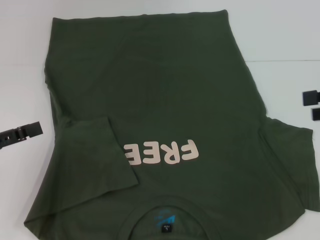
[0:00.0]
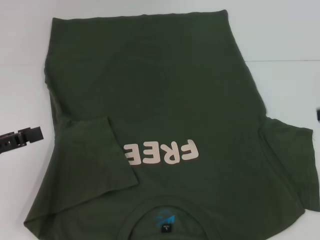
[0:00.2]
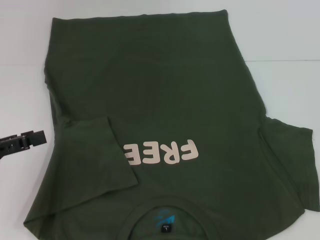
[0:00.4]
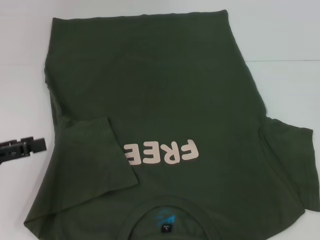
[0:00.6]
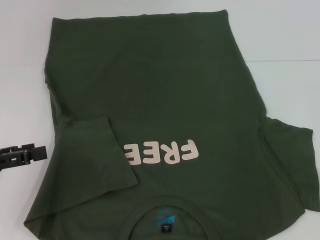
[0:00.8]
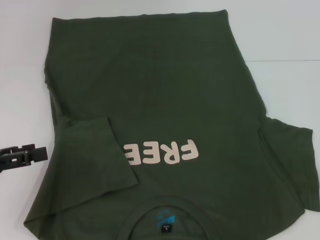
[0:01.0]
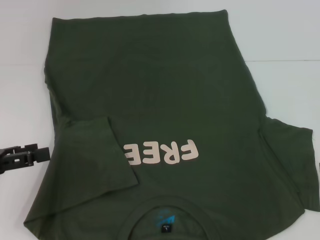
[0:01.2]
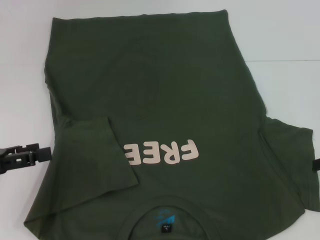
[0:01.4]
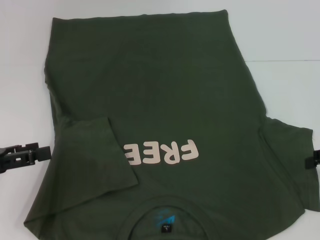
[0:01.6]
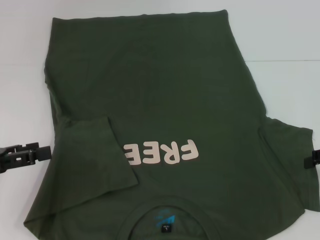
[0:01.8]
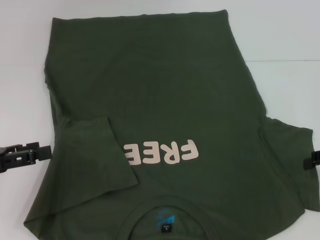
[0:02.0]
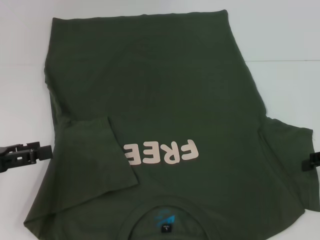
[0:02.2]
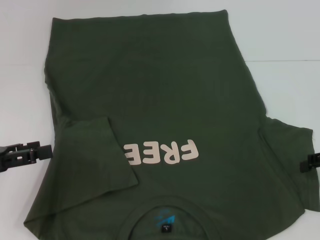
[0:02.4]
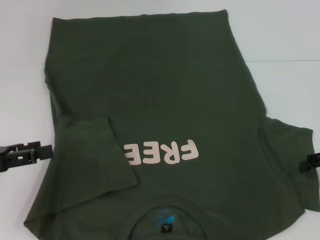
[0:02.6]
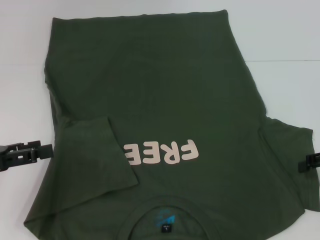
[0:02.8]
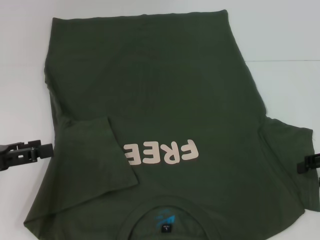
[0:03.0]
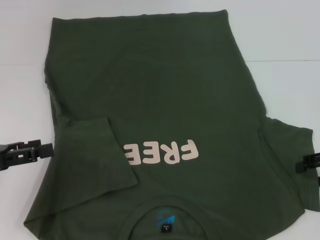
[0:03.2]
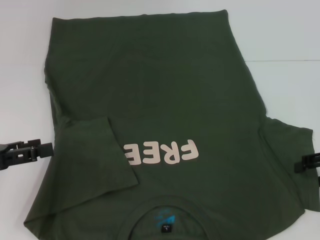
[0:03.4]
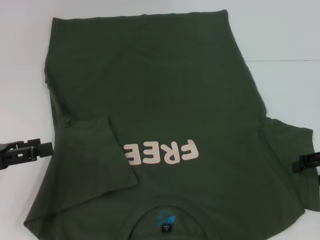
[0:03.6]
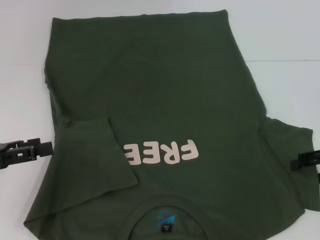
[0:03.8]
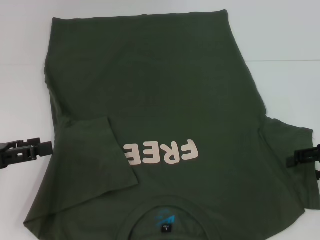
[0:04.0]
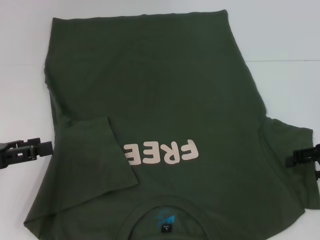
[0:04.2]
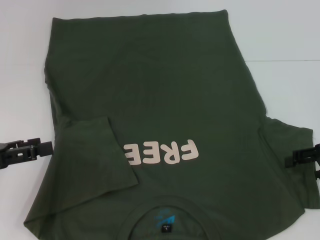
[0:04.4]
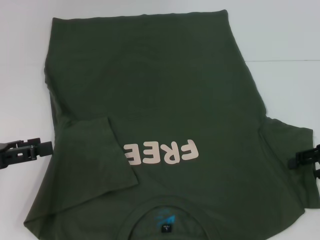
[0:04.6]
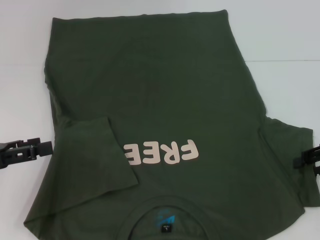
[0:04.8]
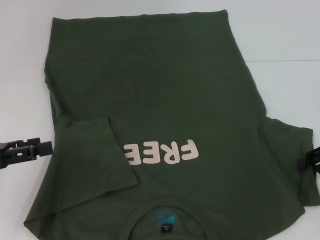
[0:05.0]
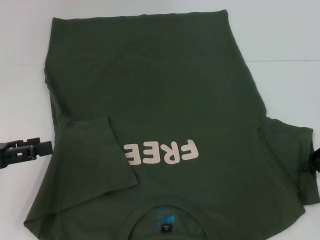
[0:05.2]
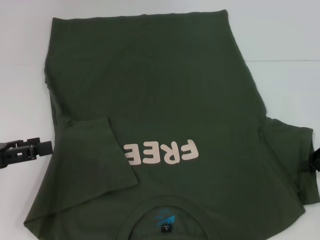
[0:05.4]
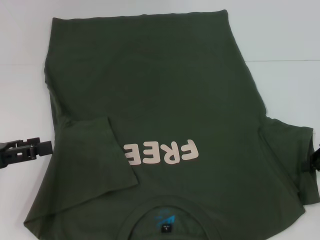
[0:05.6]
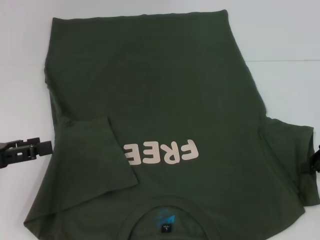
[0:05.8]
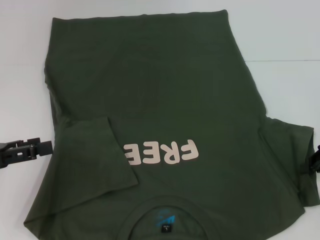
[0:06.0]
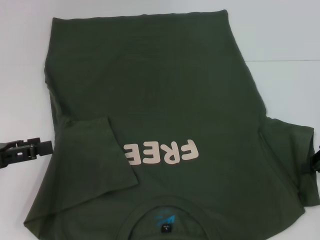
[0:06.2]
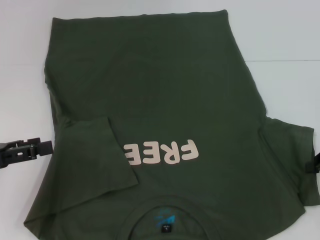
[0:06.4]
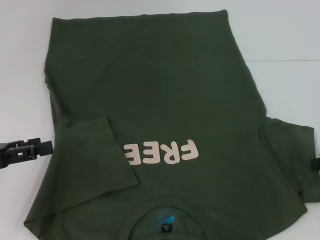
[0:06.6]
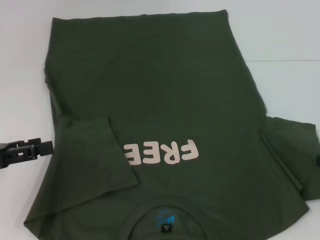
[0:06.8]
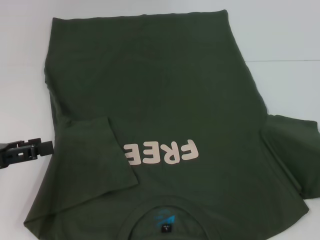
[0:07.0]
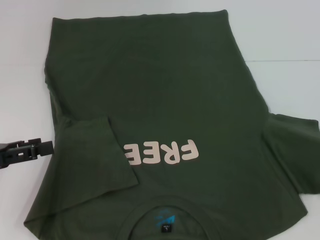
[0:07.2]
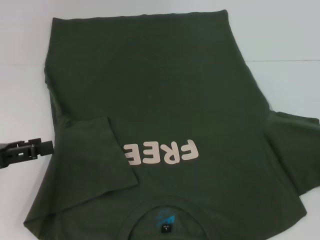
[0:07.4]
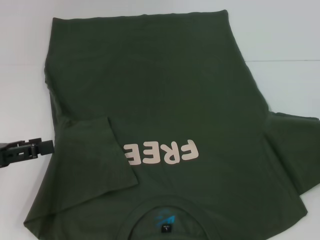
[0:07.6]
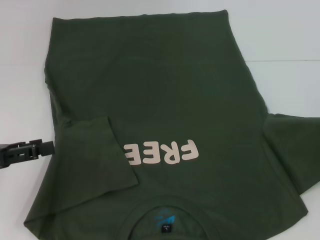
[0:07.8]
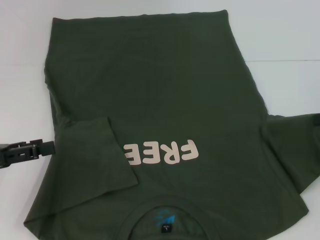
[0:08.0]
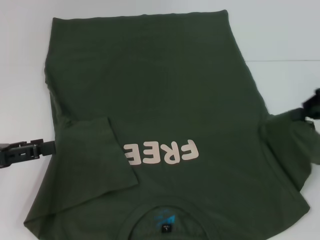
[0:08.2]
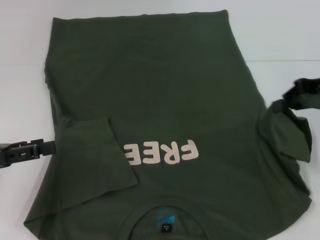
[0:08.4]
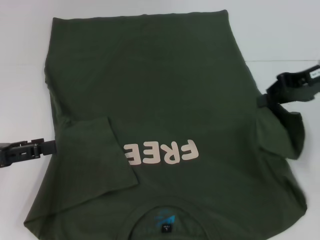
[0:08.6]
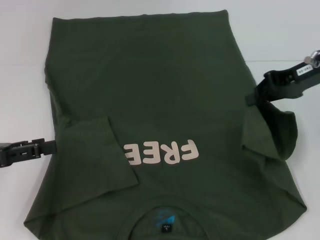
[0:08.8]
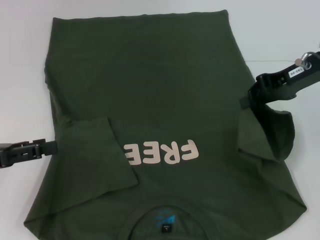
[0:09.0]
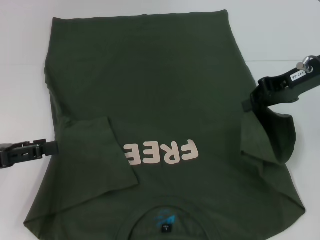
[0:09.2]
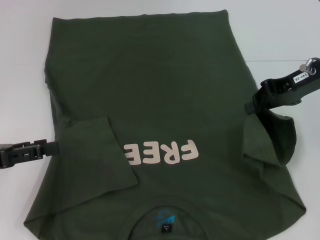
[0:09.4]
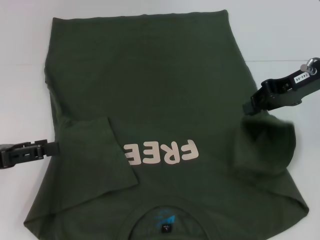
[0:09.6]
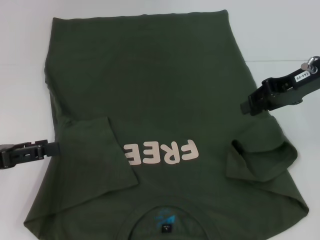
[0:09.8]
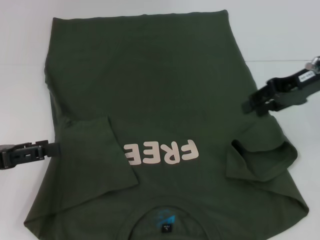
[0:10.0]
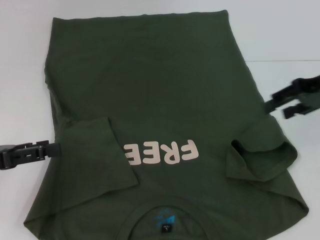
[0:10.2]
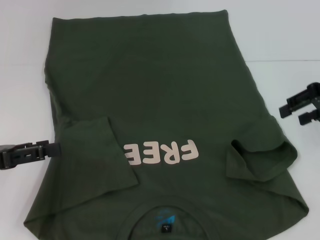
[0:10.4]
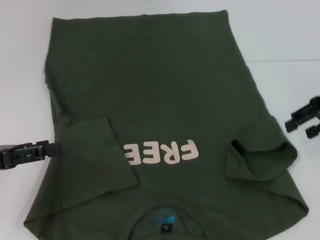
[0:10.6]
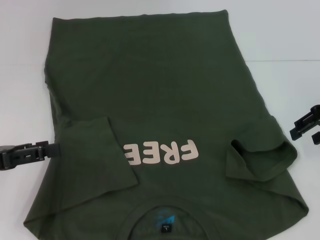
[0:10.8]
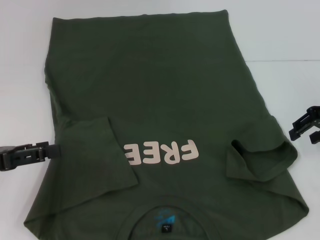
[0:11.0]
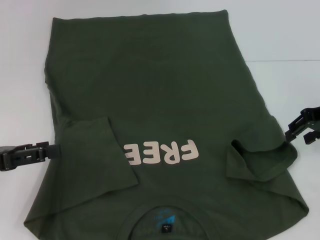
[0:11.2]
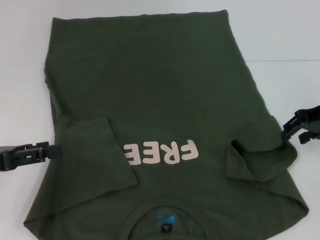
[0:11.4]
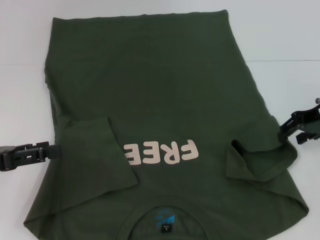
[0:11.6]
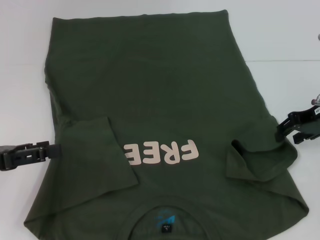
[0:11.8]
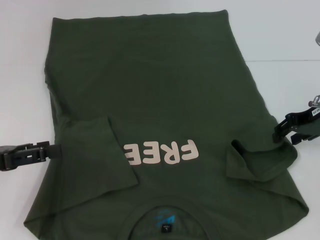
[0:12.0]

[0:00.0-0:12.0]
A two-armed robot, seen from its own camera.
0:00.0 to 0:01.6: The right gripper goes roughly 10 cm downward.
0:01.6 to 0:03.0: The grippers stay close to where they were, moving slightly.
0:03.0 to 0:04.4: Both grippers stay put.
0:04.4 to 0:06.0: The right gripper closes its fingers.
0:06.0 to 0:07.6: The right gripper is displaced upward by roughly 5 cm.
0:07.6 to 0:09.0: The right gripper goes roughly 15 cm to the left and forward.
0:09.0 to 0:10.4: The right gripper goes about 5 cm to the right, and opens up.
0:10.4 to 0:12.0: The right gripper is displaced downward by roughly 5 cm.

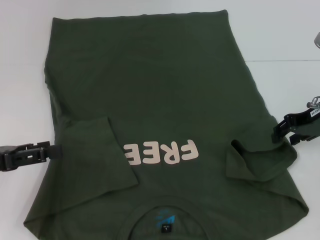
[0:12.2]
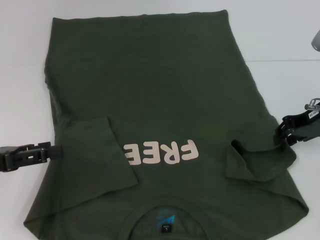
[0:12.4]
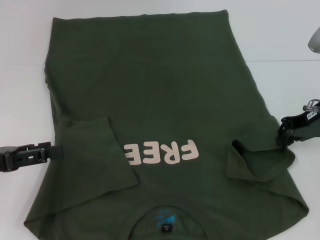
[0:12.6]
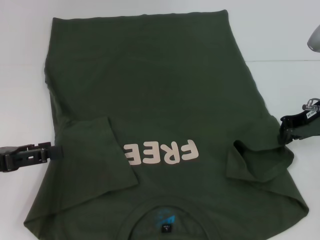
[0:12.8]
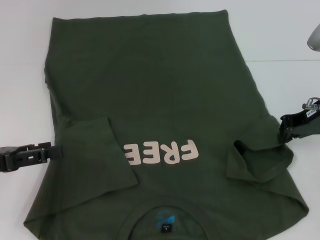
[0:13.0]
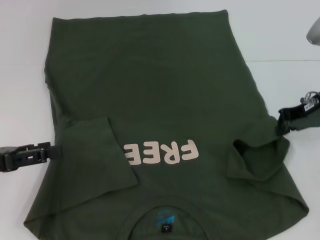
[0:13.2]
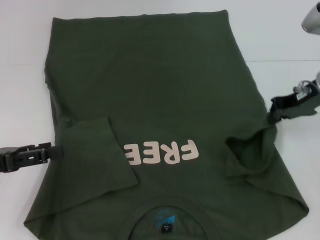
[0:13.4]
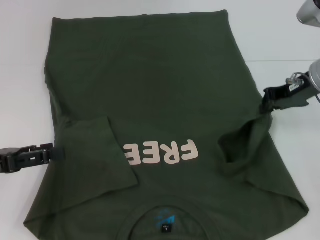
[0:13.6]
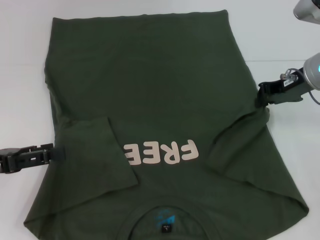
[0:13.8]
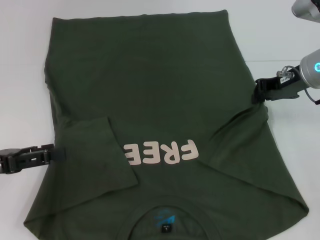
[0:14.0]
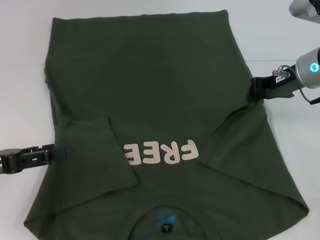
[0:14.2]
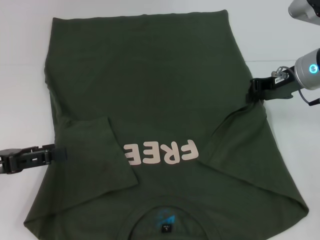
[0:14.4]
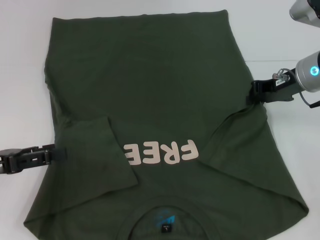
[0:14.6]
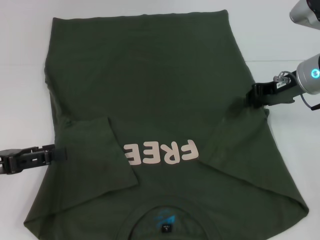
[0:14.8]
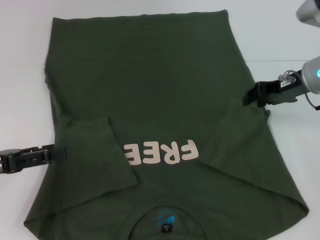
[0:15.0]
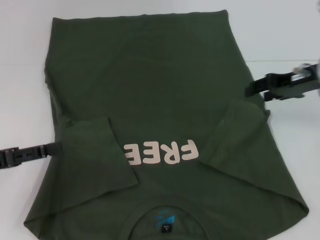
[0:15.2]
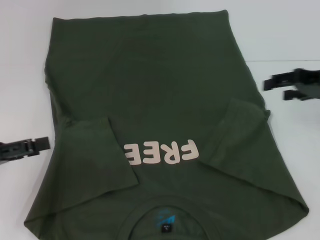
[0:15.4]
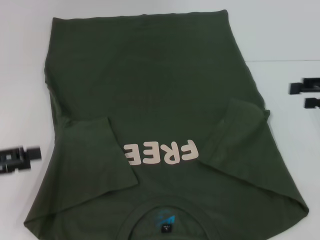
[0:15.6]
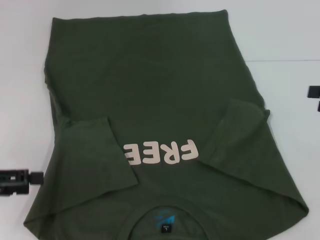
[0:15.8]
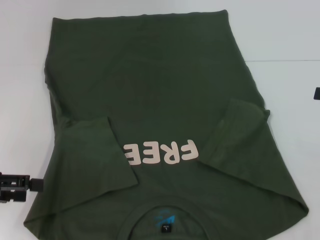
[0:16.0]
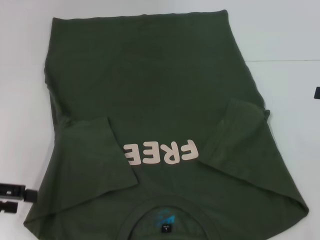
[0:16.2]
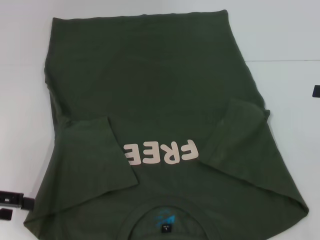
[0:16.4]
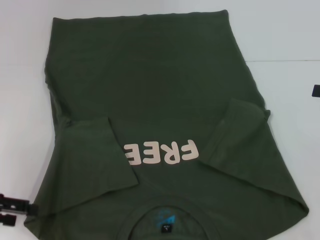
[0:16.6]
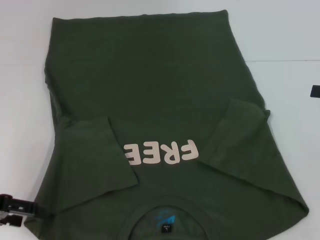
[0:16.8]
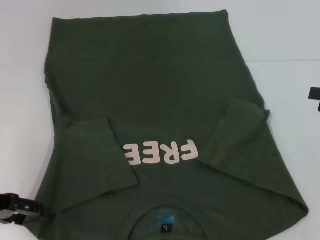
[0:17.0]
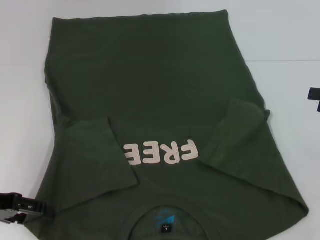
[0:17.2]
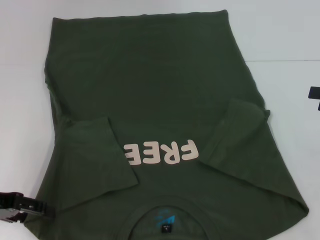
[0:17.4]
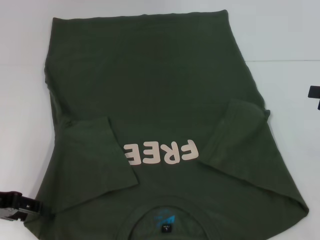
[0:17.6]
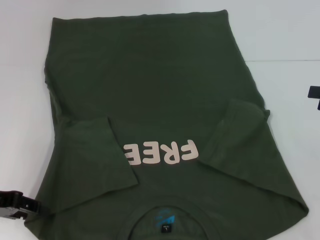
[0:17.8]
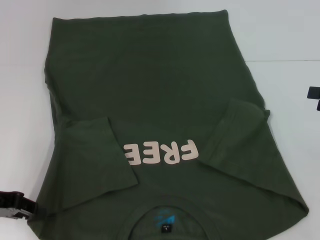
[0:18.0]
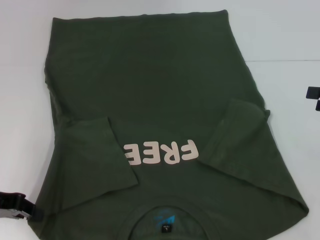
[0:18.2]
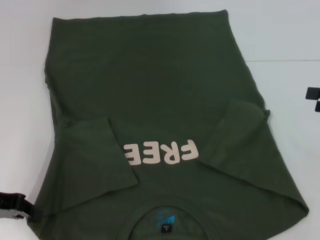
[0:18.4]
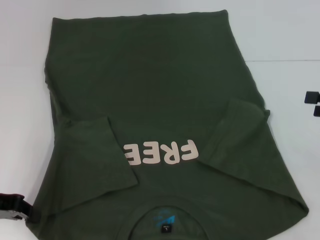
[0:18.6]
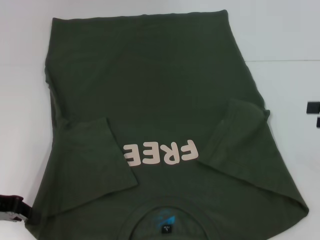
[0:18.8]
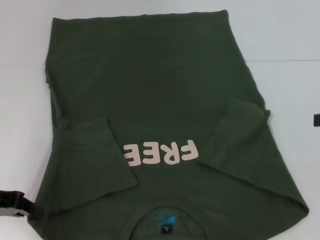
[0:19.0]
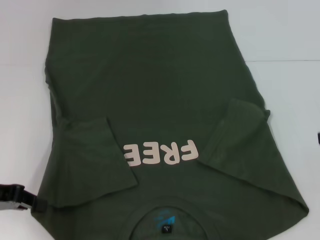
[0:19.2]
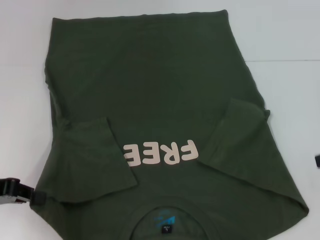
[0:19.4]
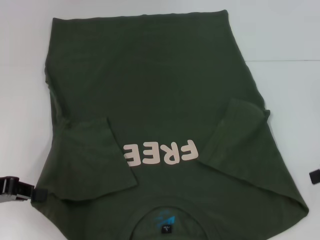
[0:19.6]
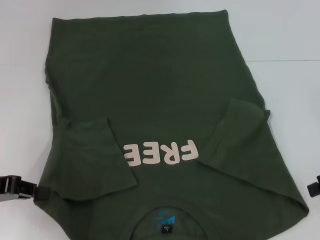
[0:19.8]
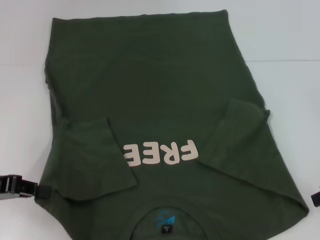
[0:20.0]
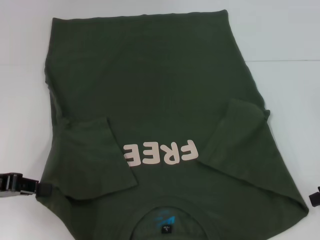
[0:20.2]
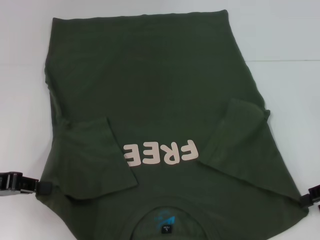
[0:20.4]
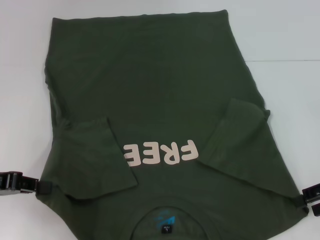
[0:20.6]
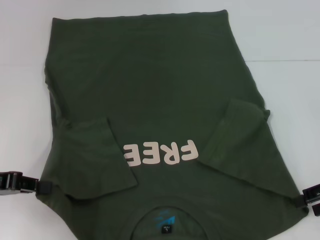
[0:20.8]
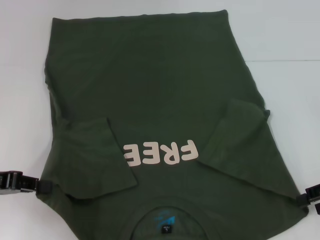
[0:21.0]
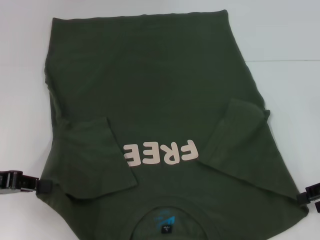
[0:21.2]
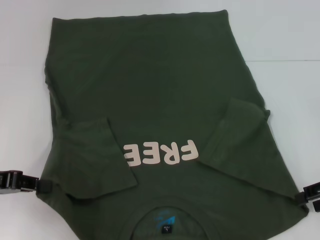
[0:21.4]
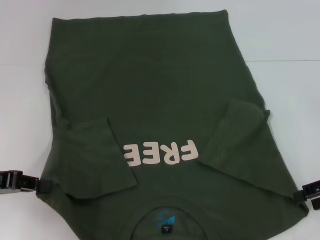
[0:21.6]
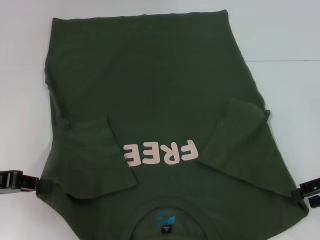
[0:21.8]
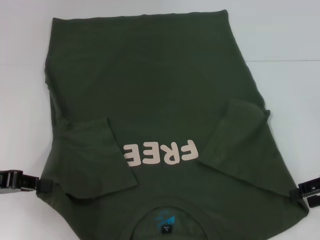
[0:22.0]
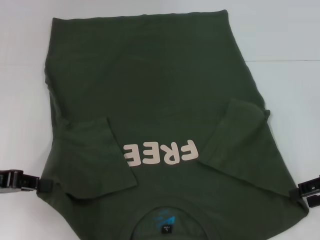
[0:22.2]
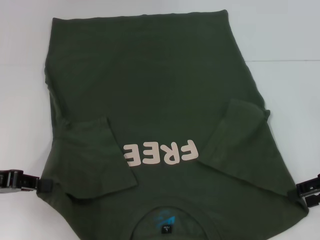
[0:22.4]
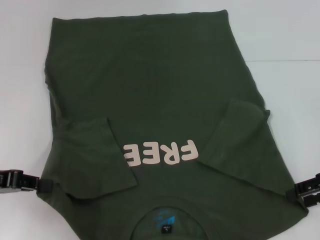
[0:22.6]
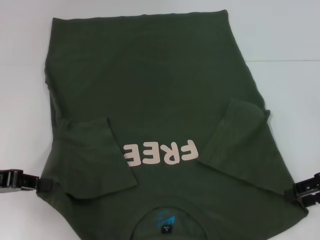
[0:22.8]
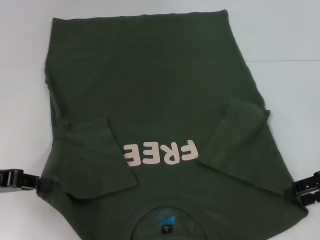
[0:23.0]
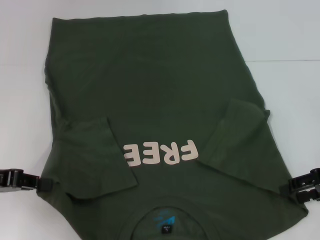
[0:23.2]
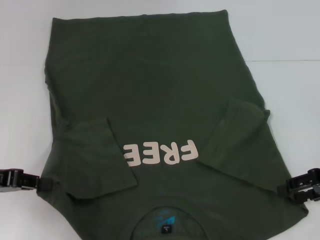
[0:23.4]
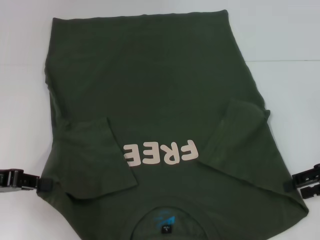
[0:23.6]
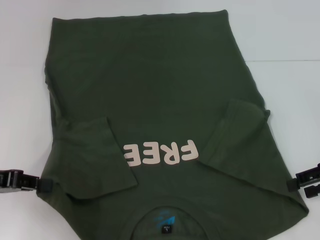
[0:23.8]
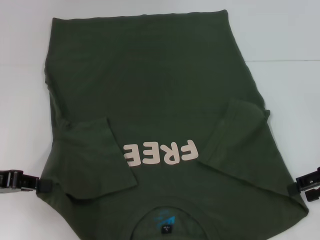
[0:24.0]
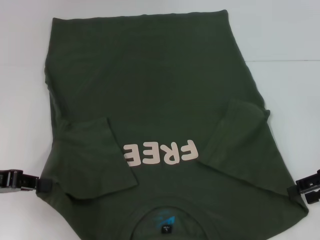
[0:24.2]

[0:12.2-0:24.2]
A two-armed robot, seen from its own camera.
Step, 0:12.2 to 0:14.8: Fold the bottom right sleeve with your right hand.
Step, 0:15.0 to 0:18.8: Grab the bottom left corner with your left hand.
0:12.2 to 0:13.8: The right gripper closes its fingers.
0:13.8 to 0:15.2: The right gripper opens.
0:15.2 to 0:16.6: The right gripper heads to the right and backward, covering some 15 cm.
0:16.6 to 0:18.2: The left gripper closes.
0:19.8 to 0:21.2: There are only small adjustments of the grippers.
0:21.2 to 0:22.6: Neither gripper changes place.
